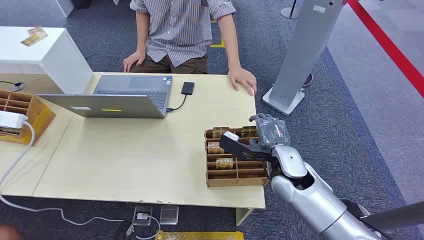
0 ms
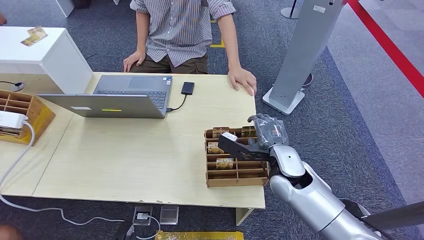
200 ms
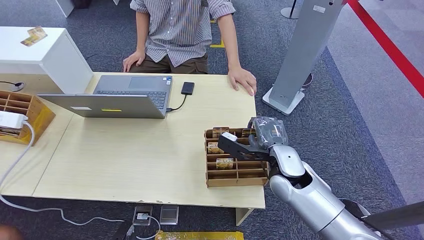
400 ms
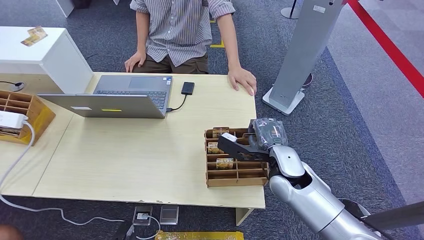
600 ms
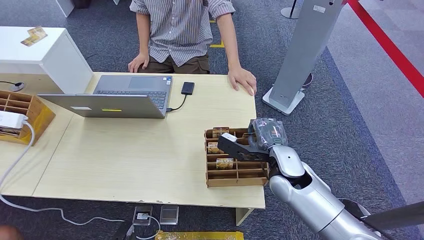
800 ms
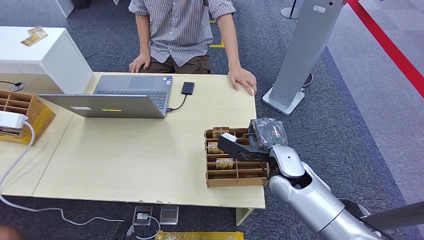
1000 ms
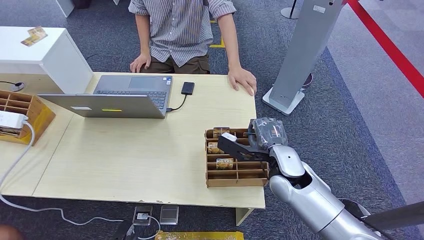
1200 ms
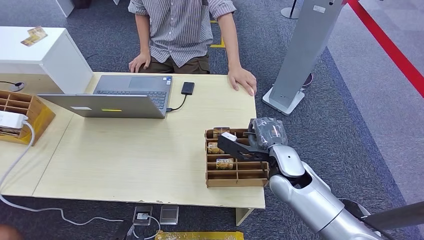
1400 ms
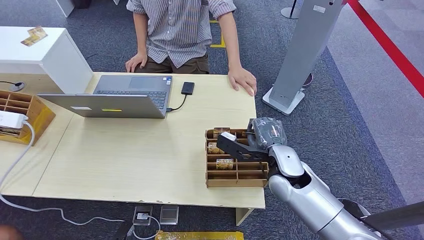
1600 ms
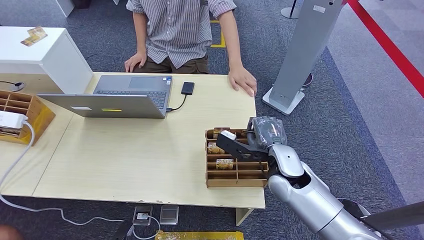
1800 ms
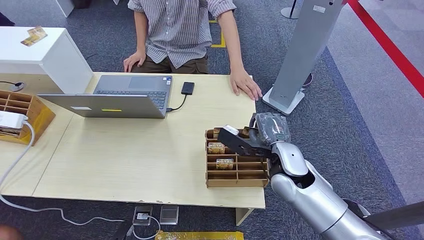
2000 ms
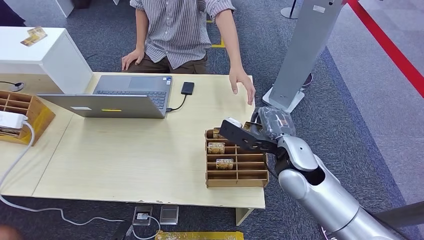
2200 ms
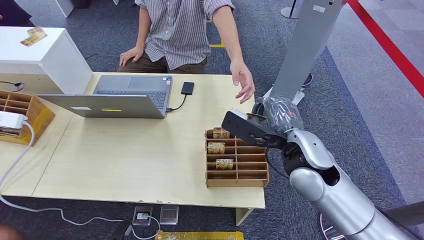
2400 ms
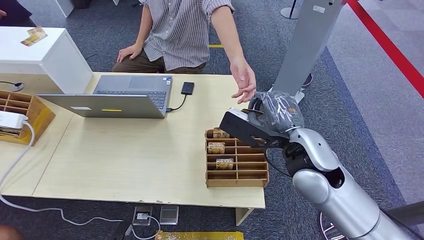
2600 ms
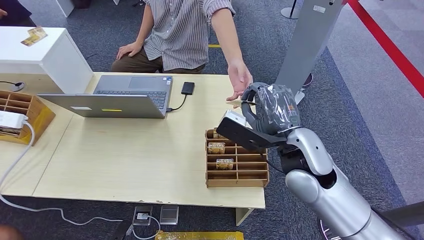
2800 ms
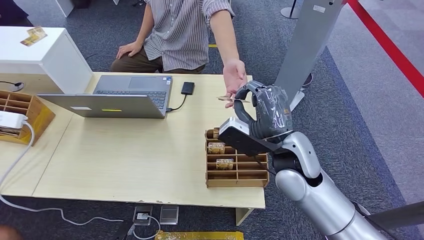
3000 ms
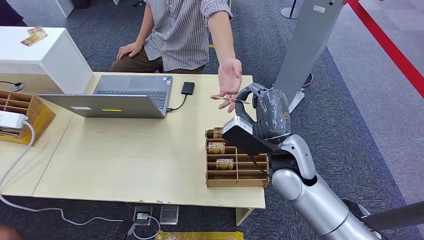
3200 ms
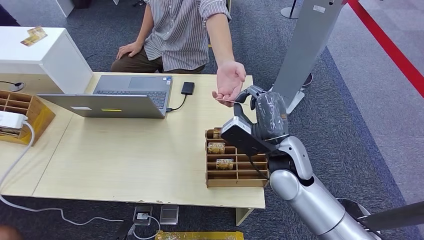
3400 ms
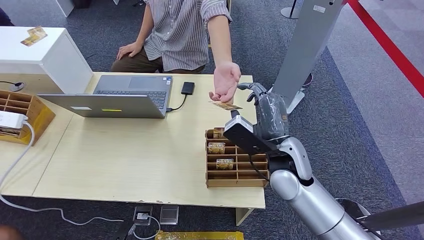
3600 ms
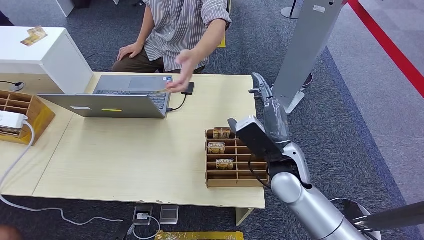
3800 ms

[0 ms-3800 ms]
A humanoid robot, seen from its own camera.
Step, 0 ms to 2600 ms: Pick up the room card from the card holder.
Step, 3200 ms to 3800 ms: Hand the room card to the target.
1200 ms to 2600 ms: The right hand goes roughly 10 cm upward.
2600 ms to 3800 ms: The right hand heads downward, covering approximately 5 cm.
